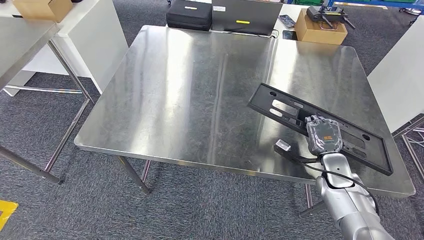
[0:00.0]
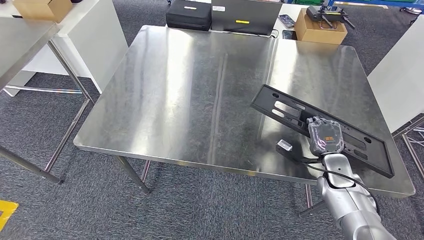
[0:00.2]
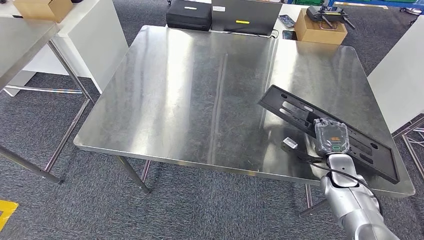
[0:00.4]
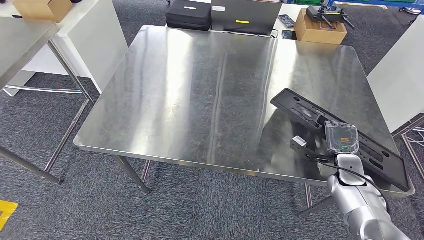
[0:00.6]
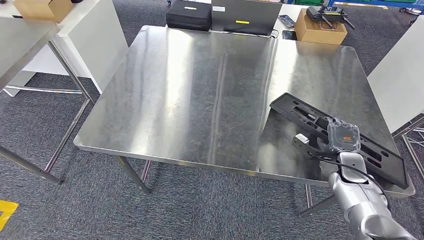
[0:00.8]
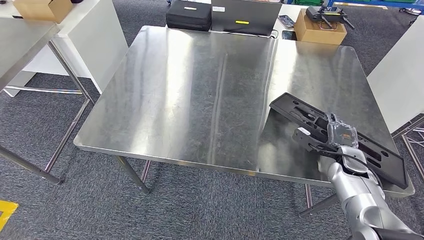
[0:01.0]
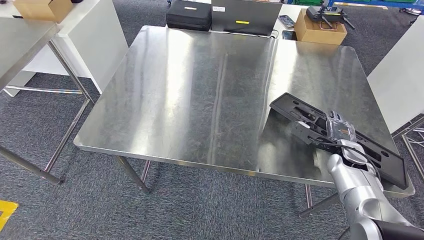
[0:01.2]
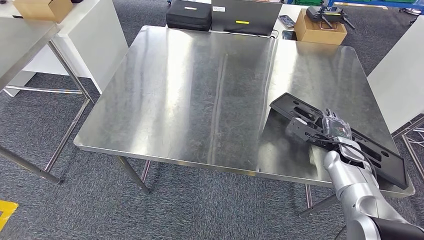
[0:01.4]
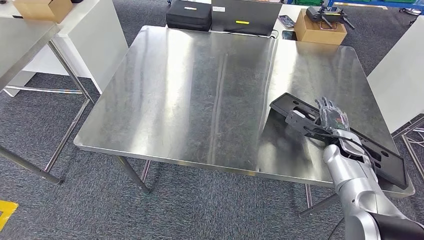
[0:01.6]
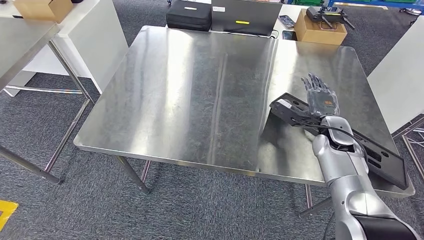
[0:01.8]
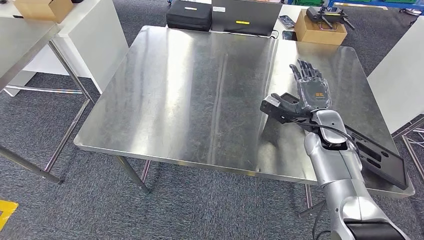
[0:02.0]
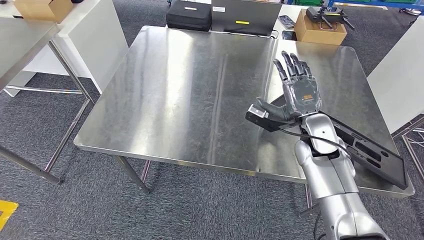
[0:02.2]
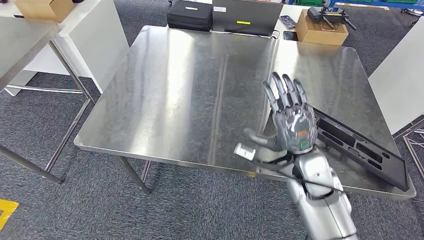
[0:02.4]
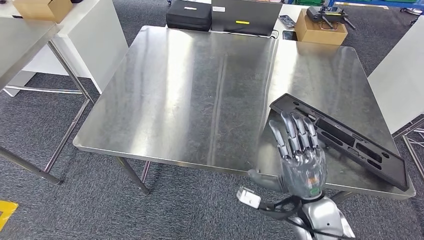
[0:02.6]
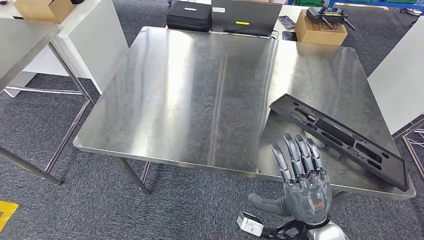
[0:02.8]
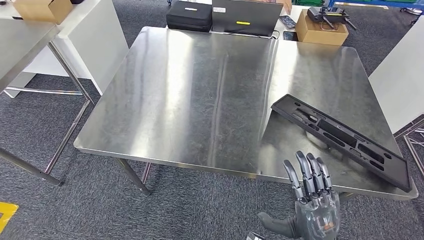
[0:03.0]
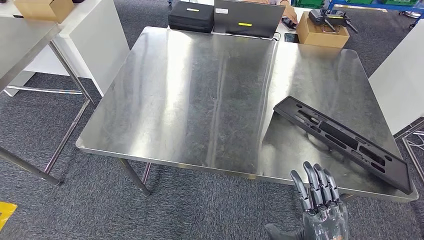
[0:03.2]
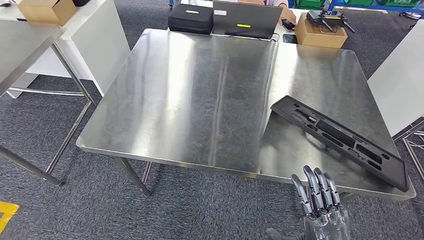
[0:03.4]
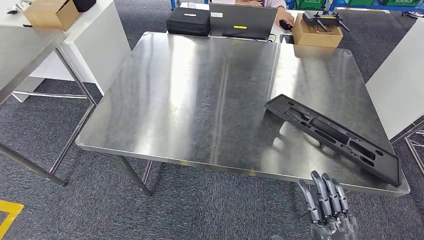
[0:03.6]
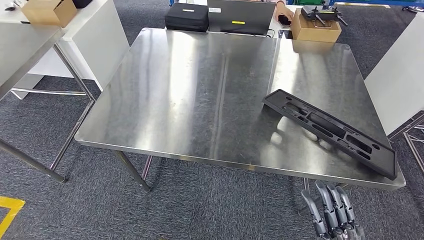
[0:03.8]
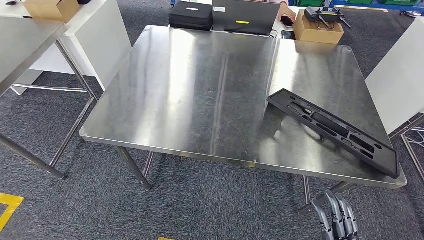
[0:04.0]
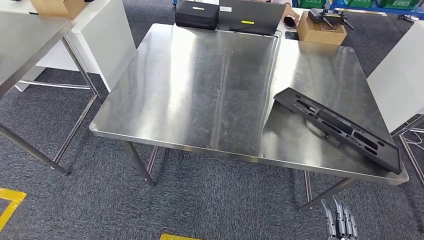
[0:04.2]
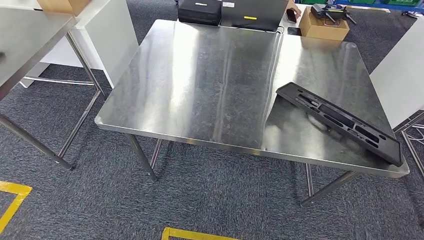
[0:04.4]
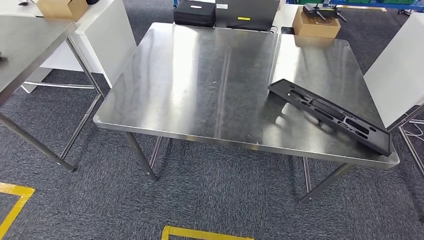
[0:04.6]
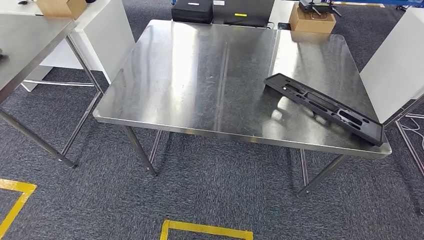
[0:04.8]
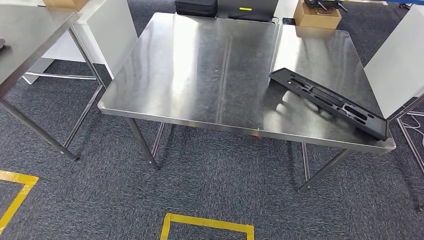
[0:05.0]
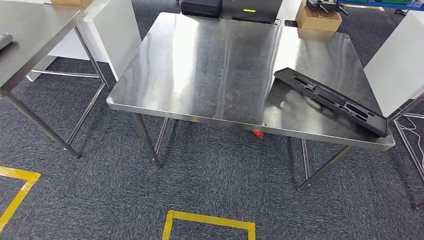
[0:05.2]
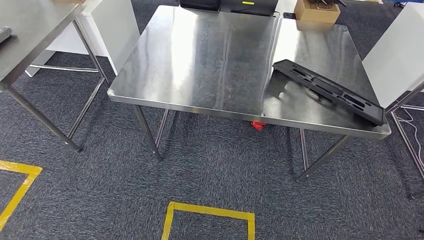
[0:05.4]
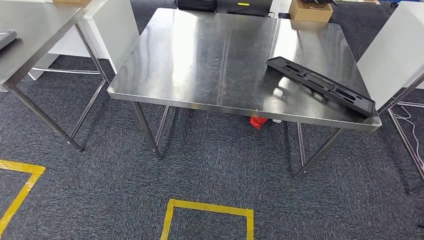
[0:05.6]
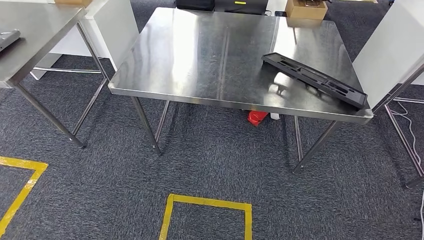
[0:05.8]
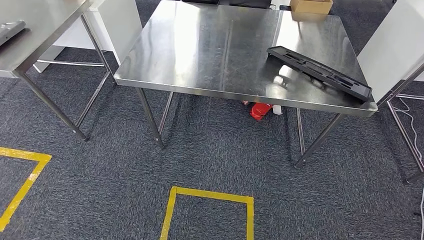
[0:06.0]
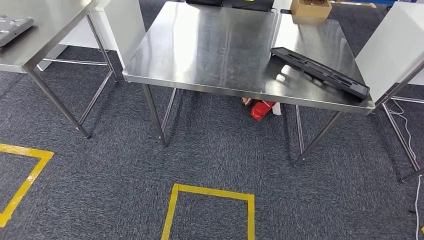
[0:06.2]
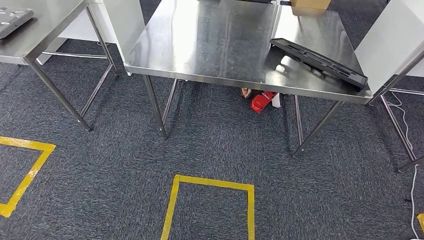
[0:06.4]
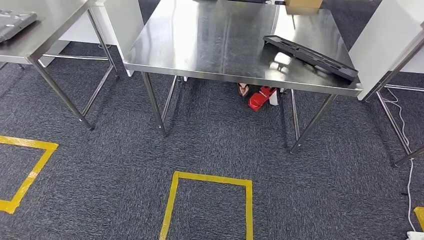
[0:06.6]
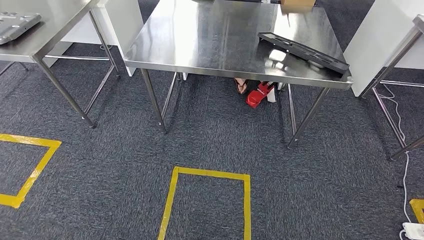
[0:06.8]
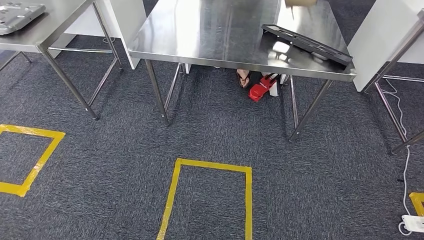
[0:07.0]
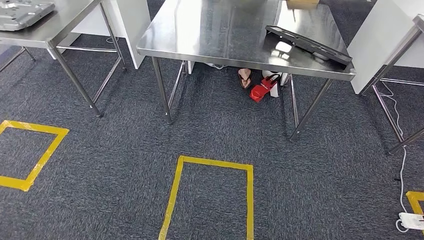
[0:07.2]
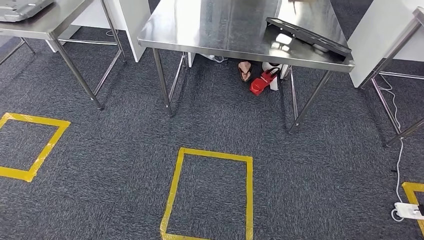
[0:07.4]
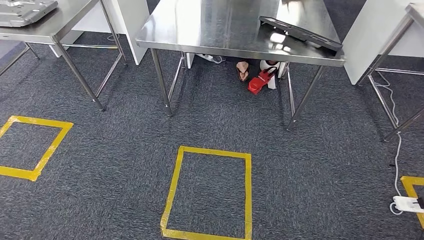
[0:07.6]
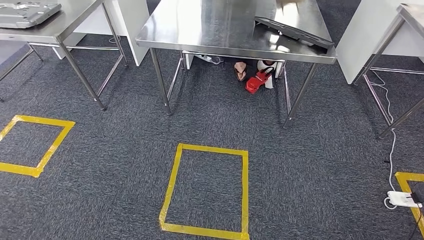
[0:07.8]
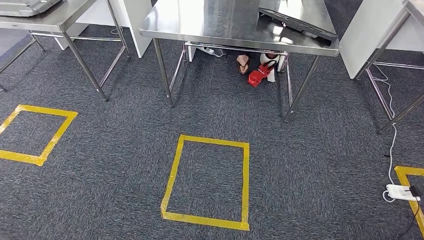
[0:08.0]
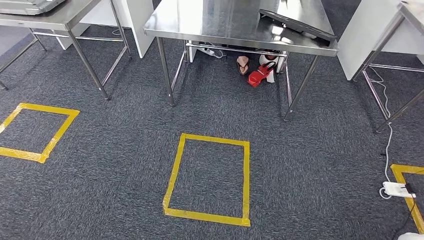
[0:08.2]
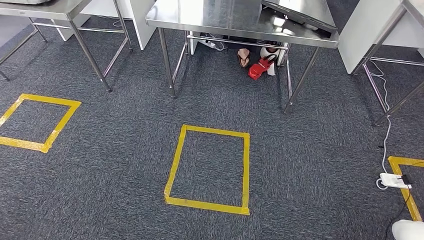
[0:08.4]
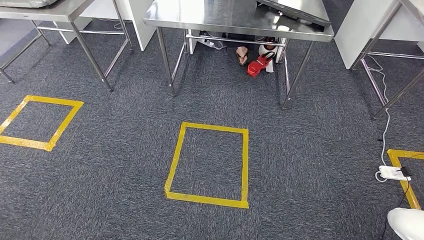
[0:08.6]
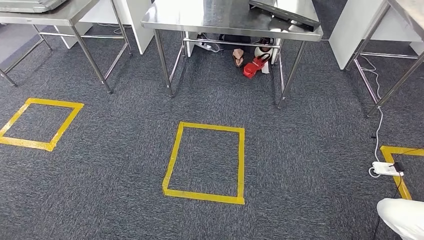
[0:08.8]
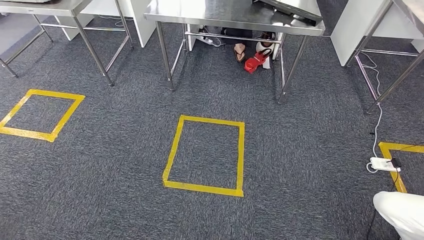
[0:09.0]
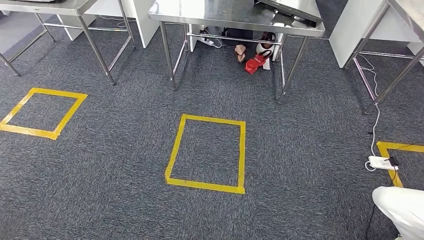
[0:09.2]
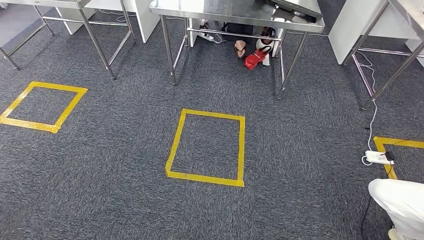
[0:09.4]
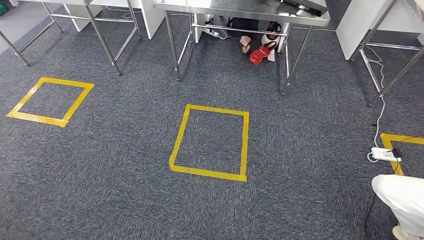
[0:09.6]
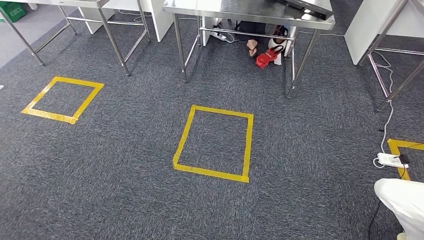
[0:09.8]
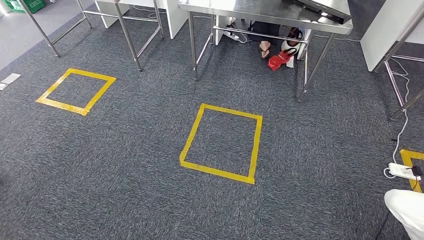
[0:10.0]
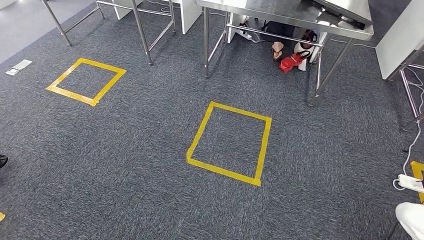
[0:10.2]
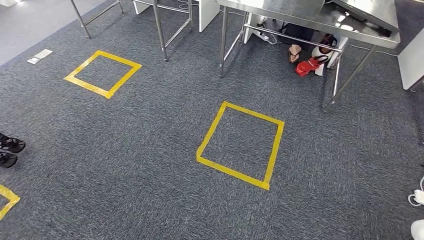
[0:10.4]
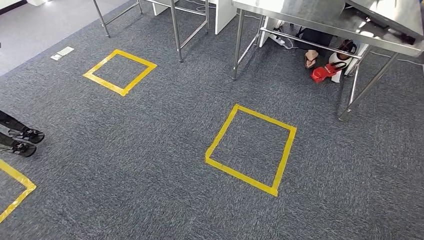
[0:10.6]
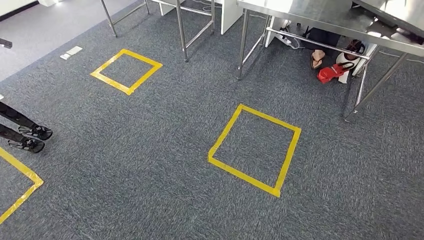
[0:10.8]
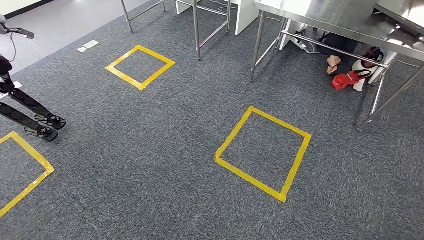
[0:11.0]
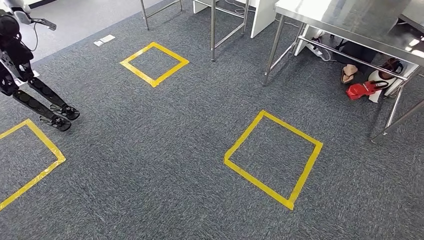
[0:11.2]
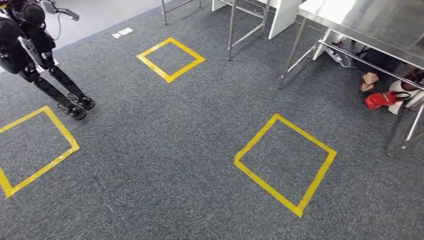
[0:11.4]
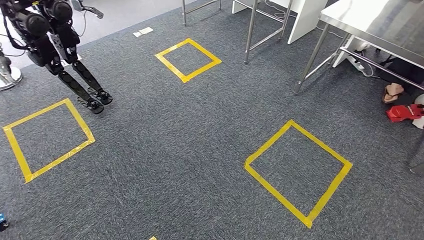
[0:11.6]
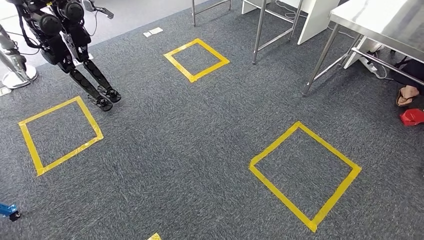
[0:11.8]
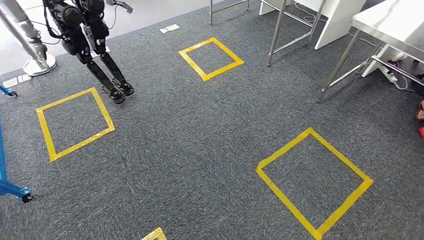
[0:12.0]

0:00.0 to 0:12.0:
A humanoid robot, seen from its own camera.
Step, 0:00.0 to 0:05.6: Insert the large material into the corresponding slot on the workbench.
0:00.0 to 0:01.6: The right hand travels forward by about 5 cm.
0:01.6 to 0:03.0: The right hand is displaced backward and to the left by roughly 30 cm.

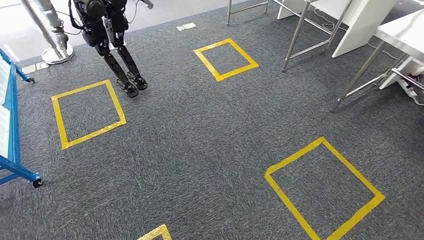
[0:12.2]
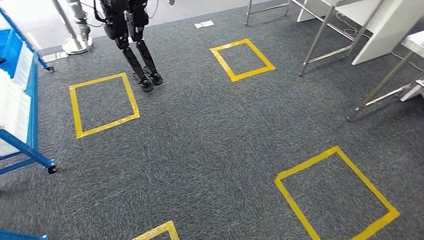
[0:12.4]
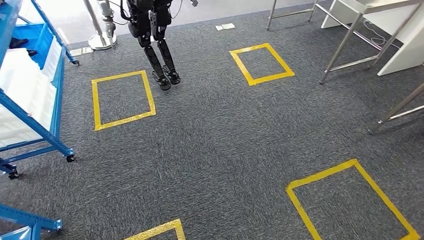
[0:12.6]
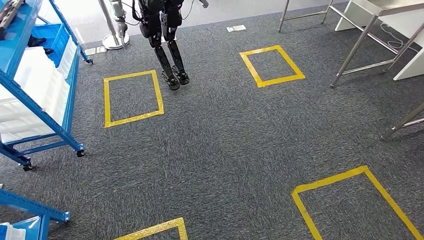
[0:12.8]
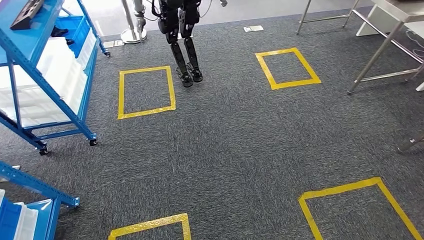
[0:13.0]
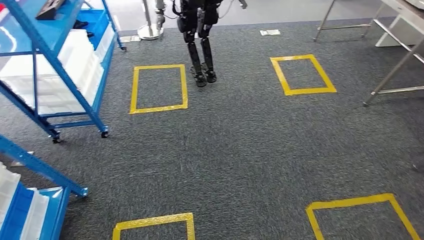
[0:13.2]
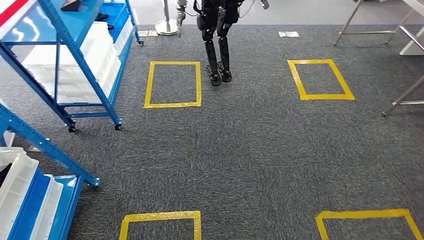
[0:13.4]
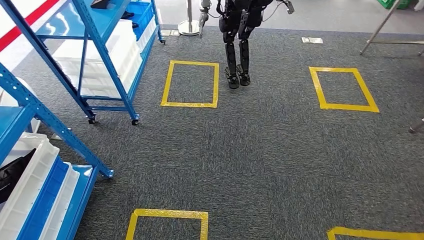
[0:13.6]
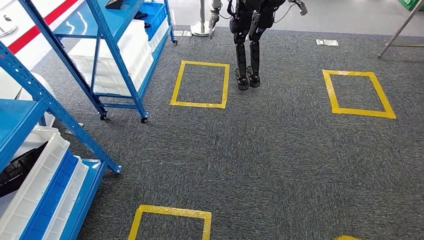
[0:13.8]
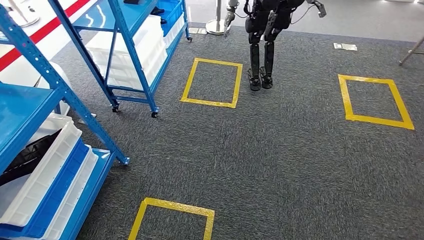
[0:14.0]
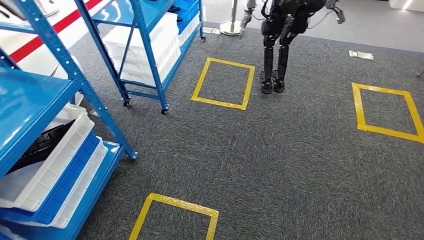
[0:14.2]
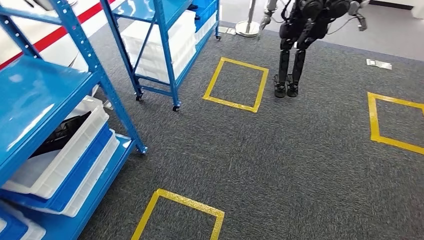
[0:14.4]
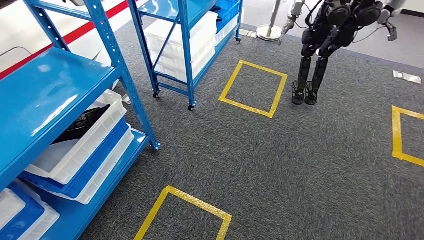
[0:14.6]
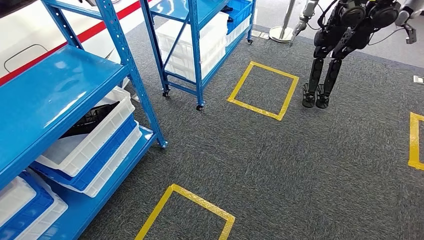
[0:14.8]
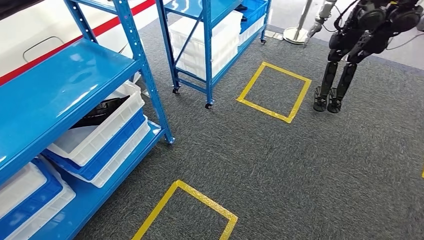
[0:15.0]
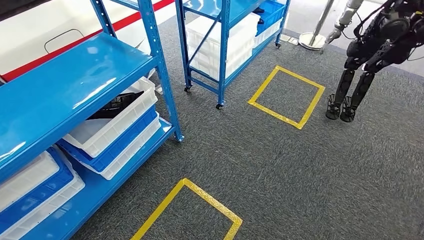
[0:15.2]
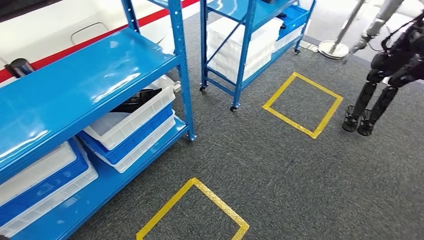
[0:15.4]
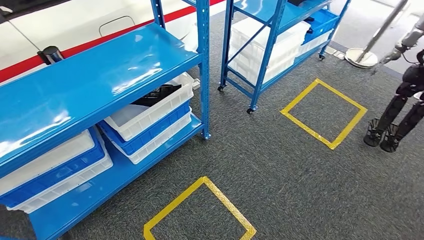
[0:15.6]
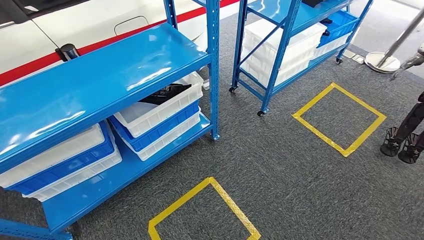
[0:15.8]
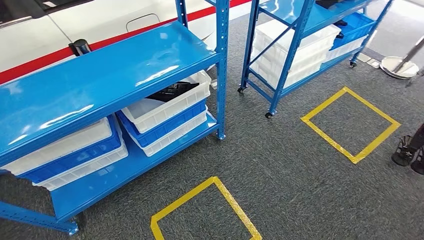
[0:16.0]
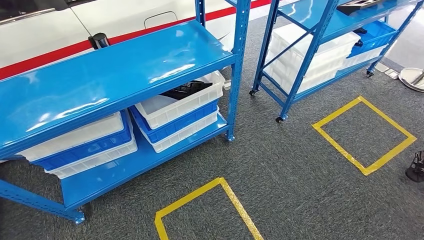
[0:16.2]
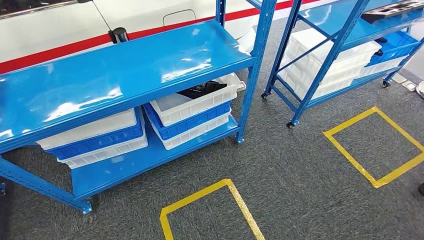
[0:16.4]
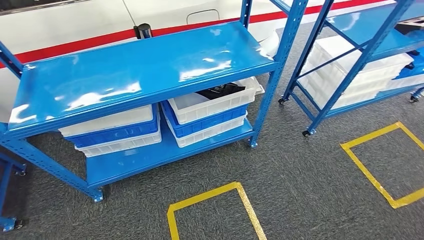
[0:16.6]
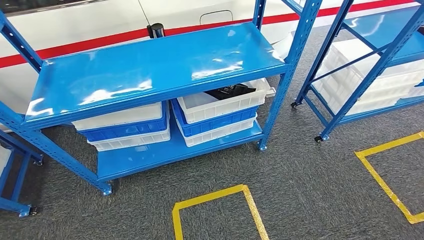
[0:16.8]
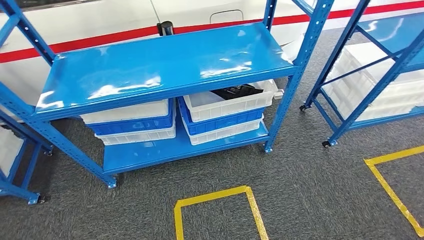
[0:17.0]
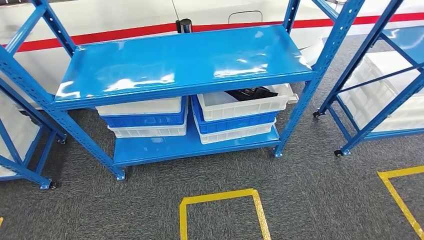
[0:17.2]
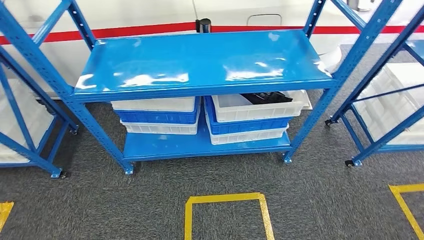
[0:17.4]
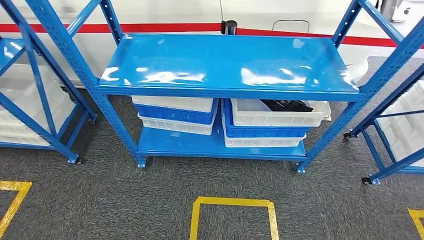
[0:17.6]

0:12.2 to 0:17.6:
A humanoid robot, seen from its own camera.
Step, 0:12.2 to 0:17.6: Move to the initial position of the shelf.
